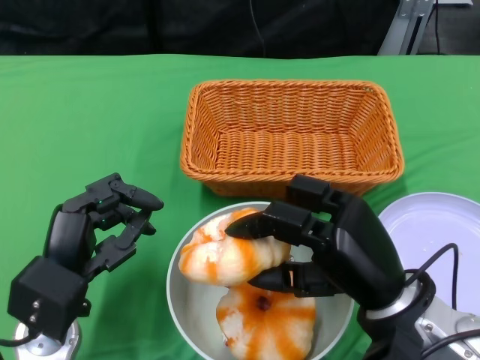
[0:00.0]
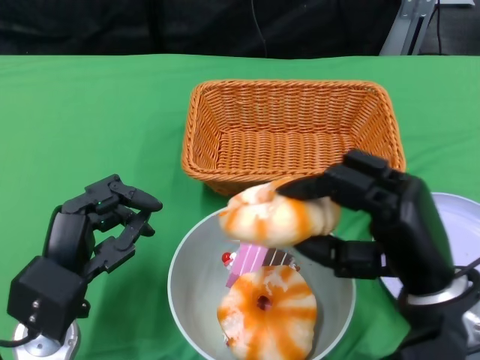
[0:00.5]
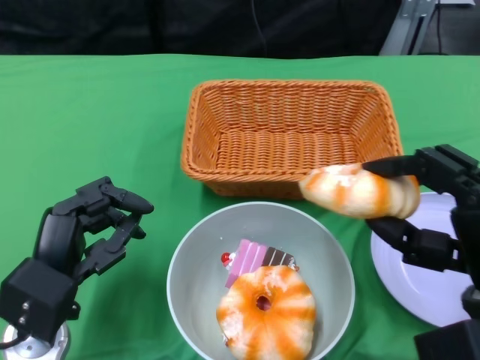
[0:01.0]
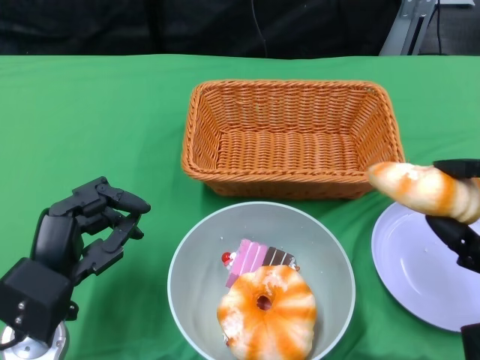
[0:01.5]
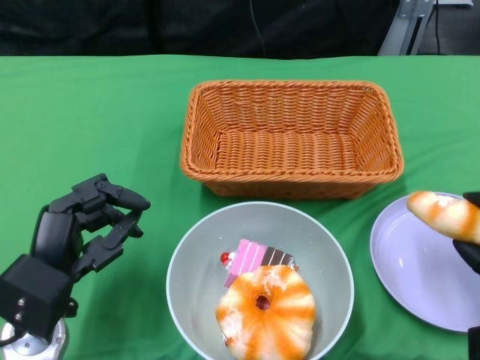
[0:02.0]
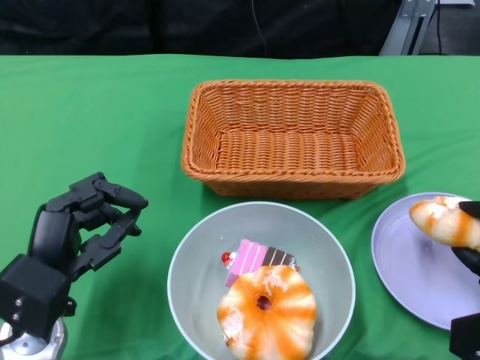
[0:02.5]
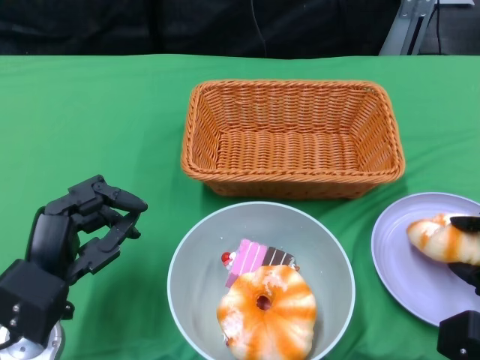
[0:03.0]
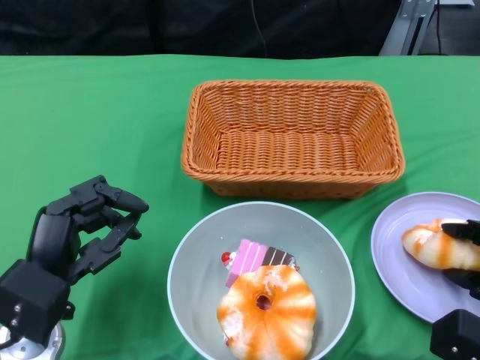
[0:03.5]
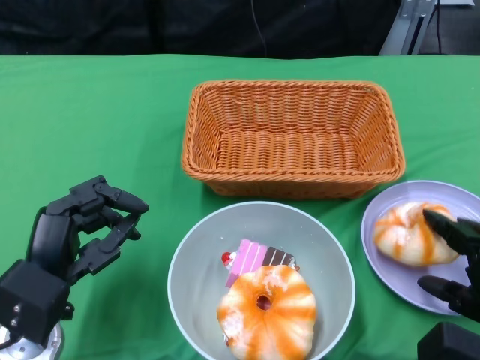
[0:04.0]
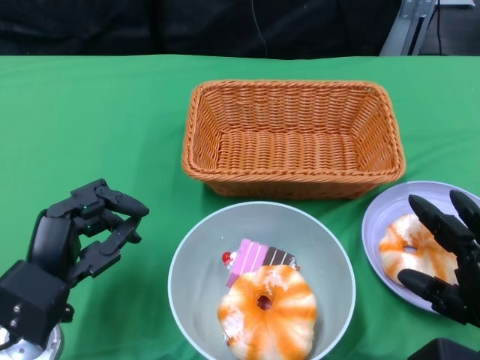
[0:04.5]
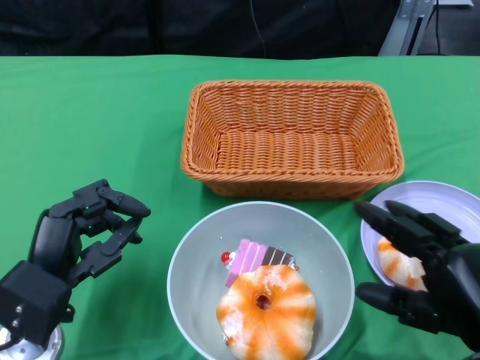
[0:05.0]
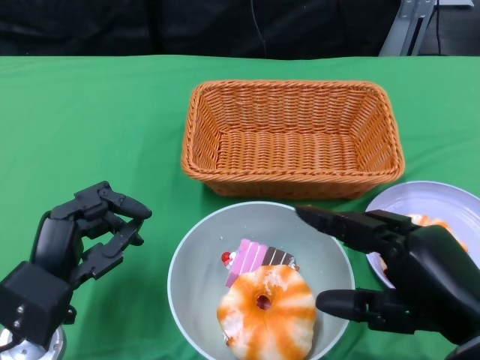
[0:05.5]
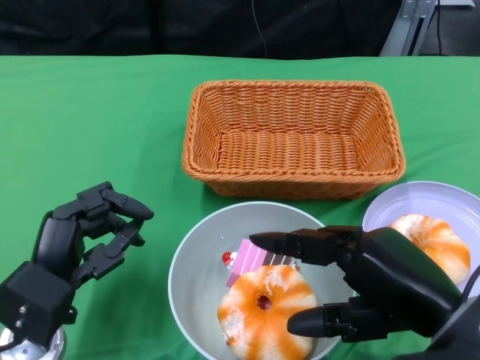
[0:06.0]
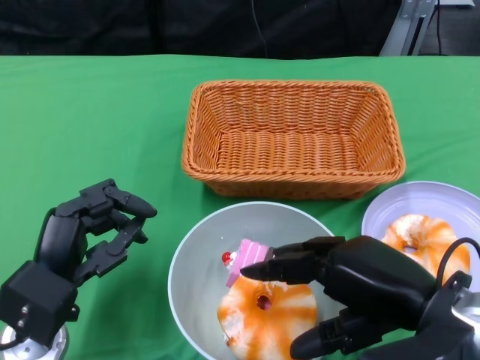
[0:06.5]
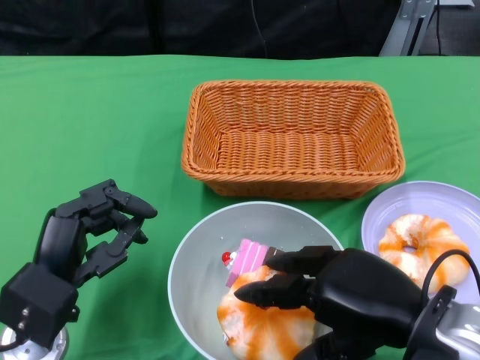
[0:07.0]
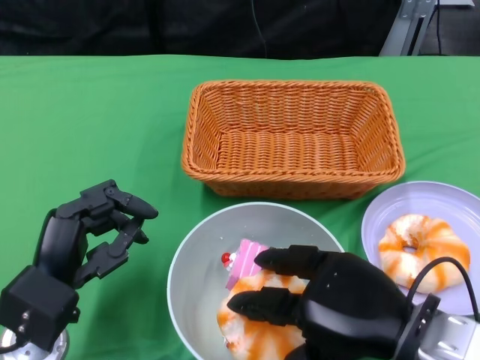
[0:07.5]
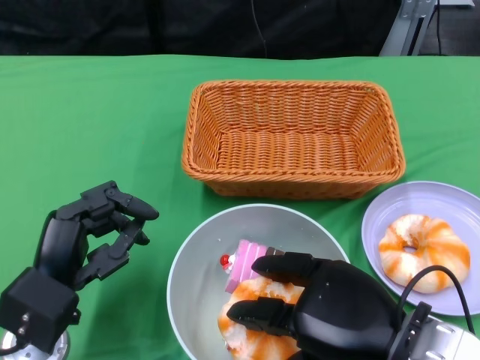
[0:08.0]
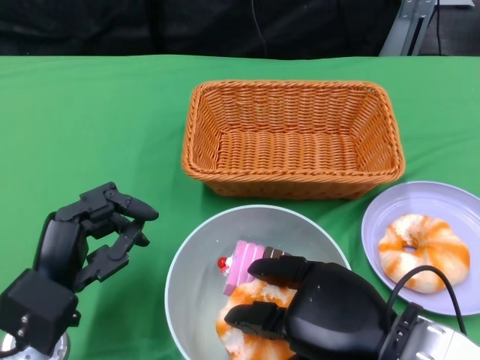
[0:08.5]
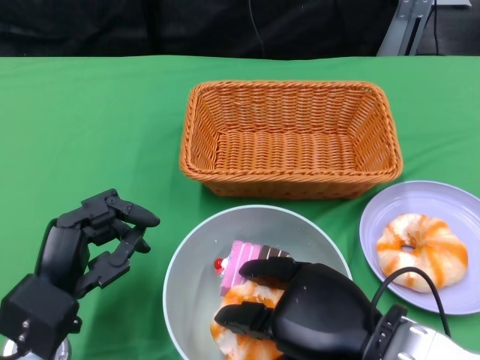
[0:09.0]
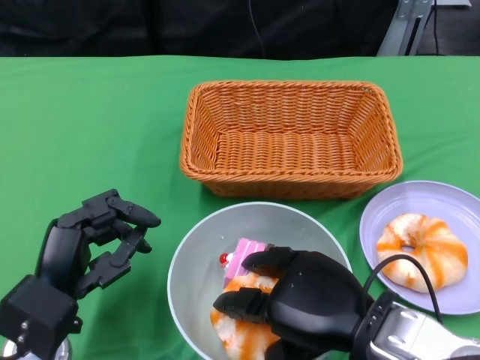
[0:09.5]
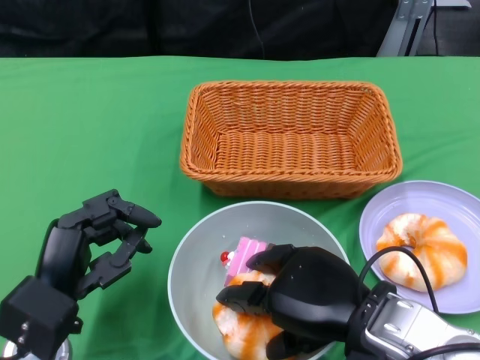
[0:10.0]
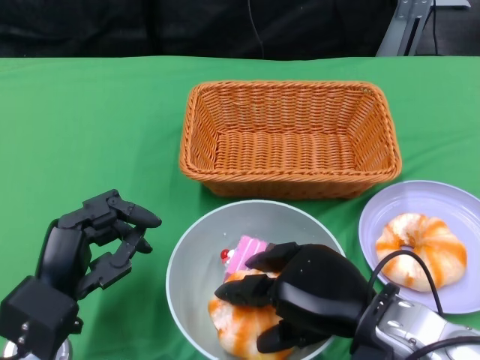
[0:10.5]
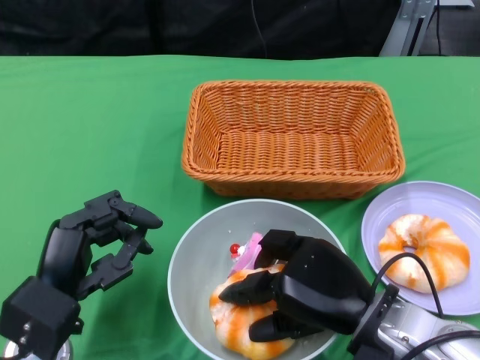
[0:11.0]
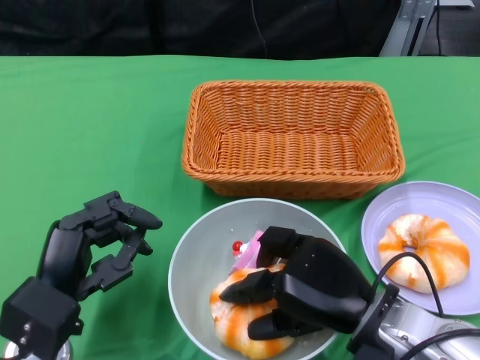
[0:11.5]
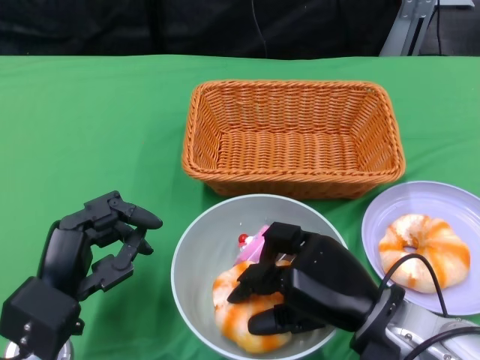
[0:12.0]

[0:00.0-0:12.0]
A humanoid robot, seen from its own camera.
0:00.0 to 0:02.0: The right hand is displaced to the right by about 15 cm.
0:04.0 to 0:06.0: The right hand heads upward and to the left, covering some 15 cm.
0:08.0 to 0:10.0: The hands move only a little.

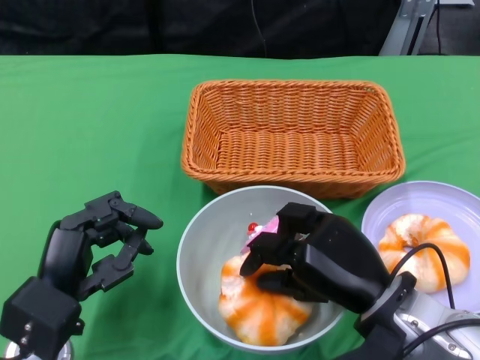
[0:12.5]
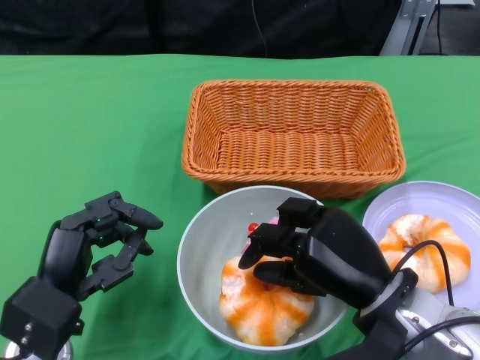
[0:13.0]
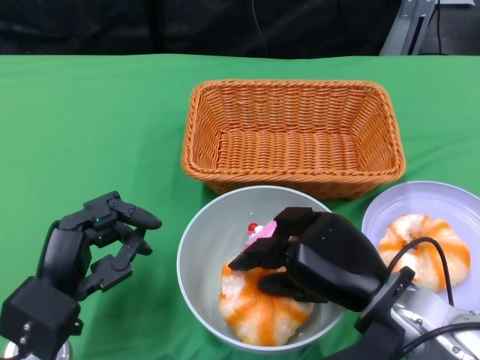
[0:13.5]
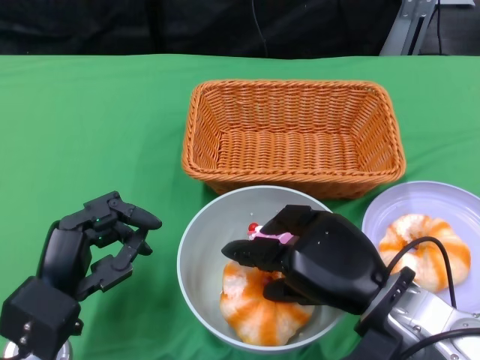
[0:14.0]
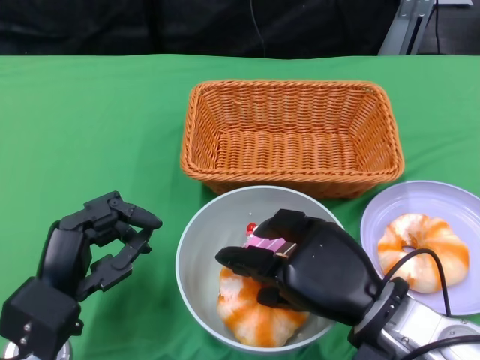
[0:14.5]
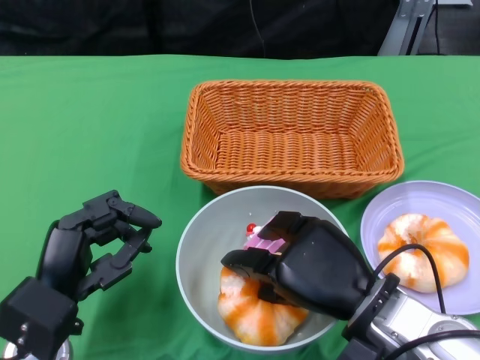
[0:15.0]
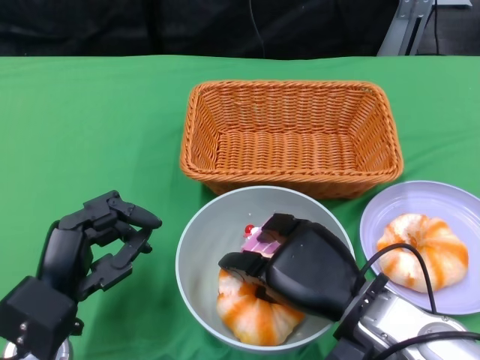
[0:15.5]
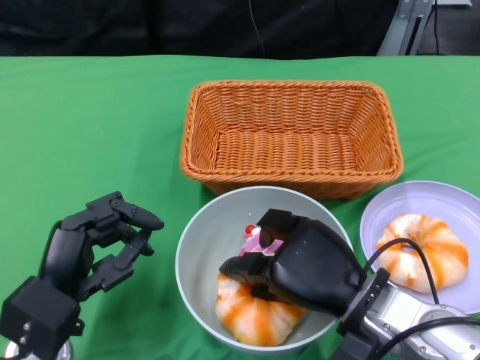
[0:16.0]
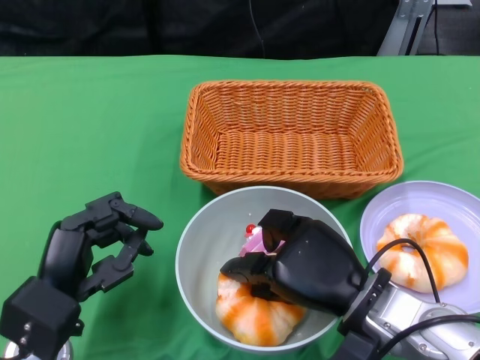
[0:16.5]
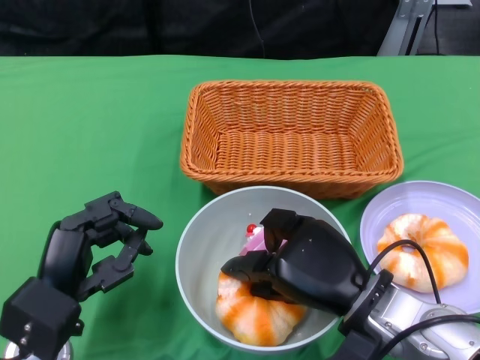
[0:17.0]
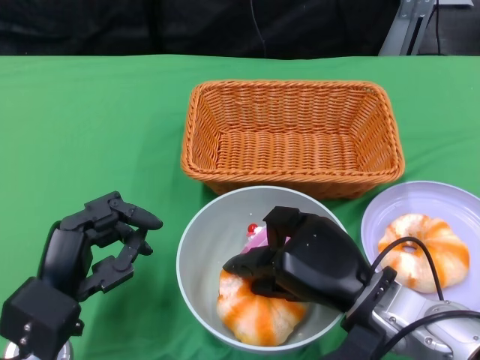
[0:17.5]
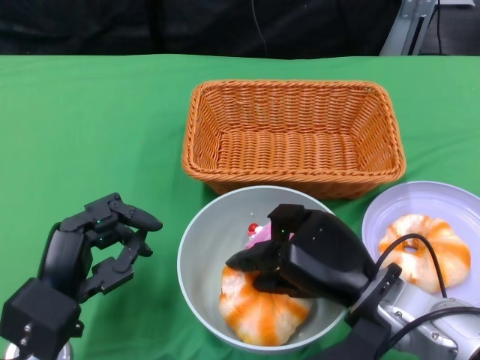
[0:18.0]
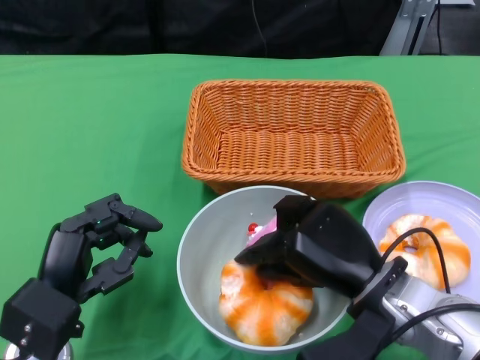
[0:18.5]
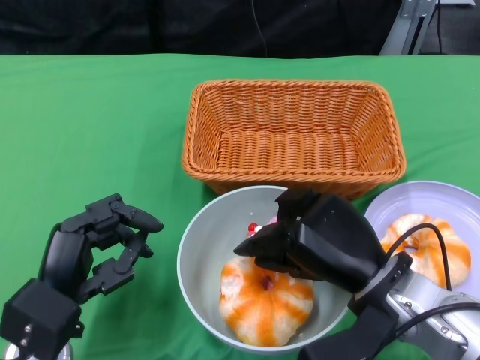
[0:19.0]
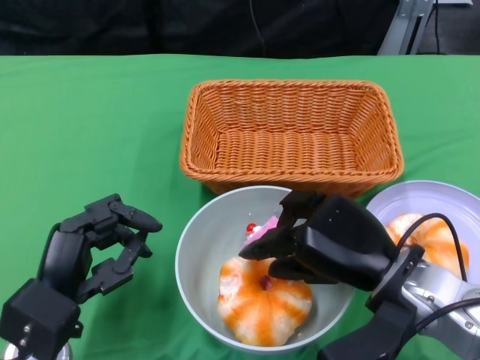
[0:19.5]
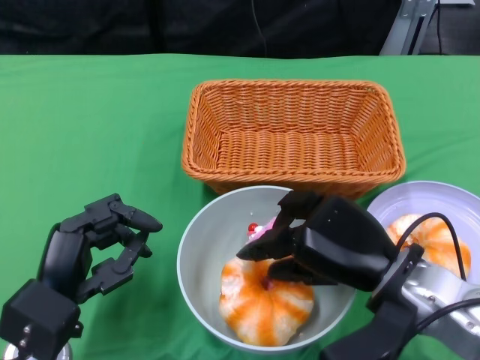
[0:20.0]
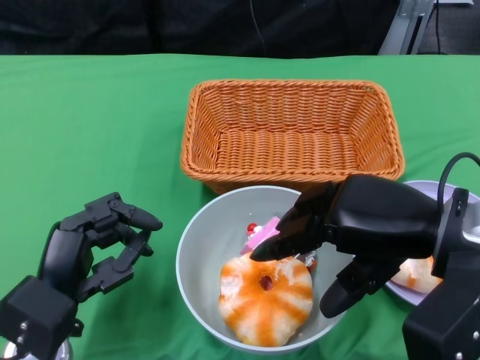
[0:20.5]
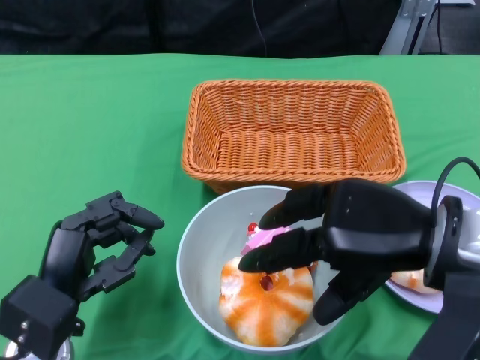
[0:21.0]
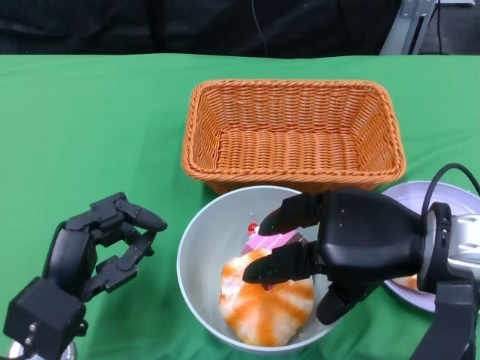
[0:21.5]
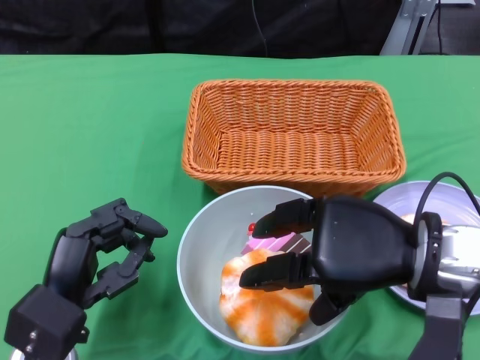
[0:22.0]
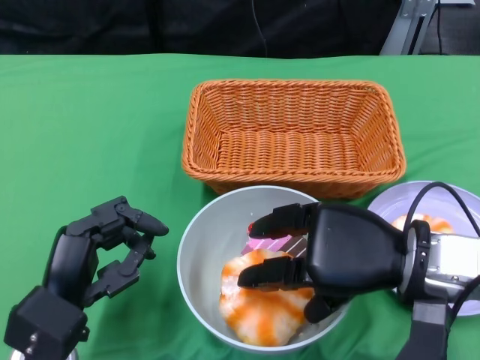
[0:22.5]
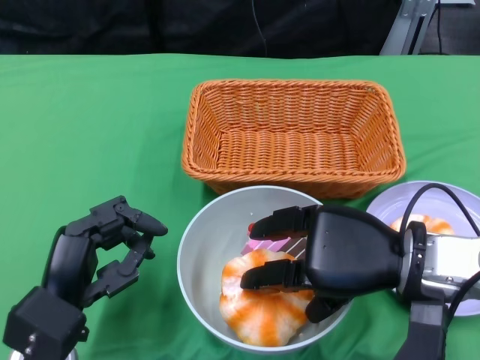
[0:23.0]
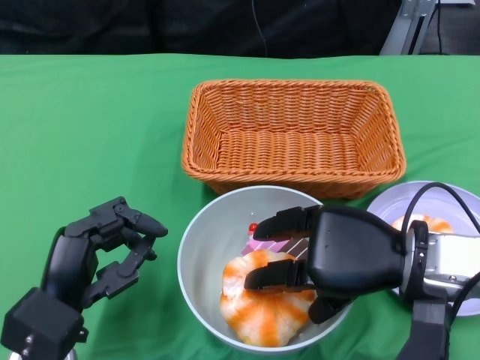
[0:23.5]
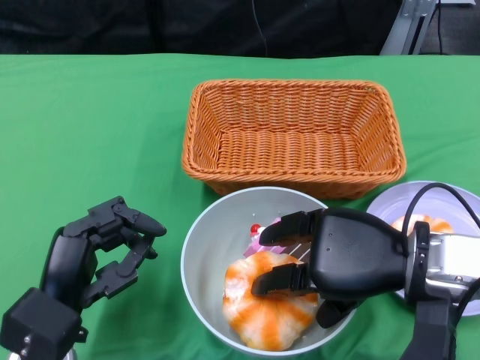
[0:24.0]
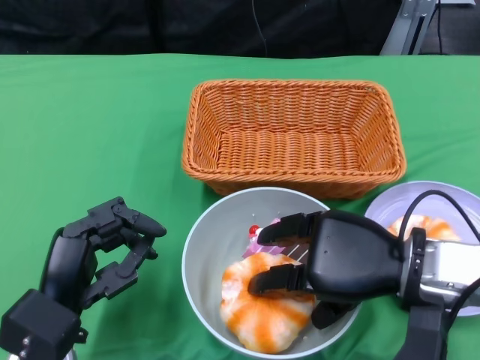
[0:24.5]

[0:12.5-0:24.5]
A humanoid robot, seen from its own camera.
0:12.5 to 0:14.5: The hands stay close to where they were, moving slightly.
0:14.5 to 0:18.5: The hands stay close to where they were, moving slightly.
0:18.5 to 0:20.5: The right hand is displaced upward and to the right by roughly 10 cm.
0:20.5 to 0:22.5: The right hand goes approximately 5 cm downward.
0:22.5 to 0:24.5: The hands make only small movements.

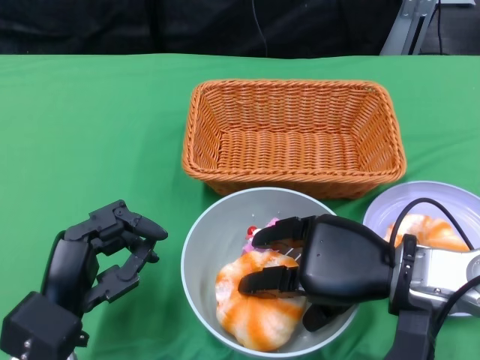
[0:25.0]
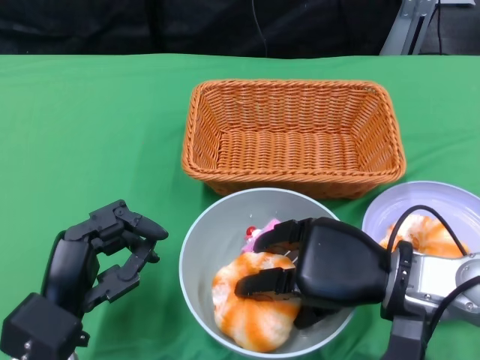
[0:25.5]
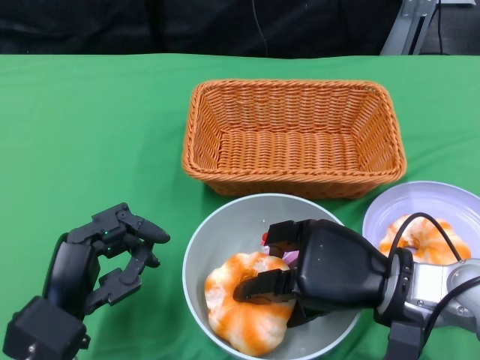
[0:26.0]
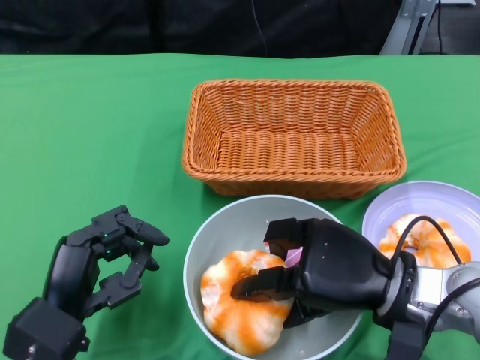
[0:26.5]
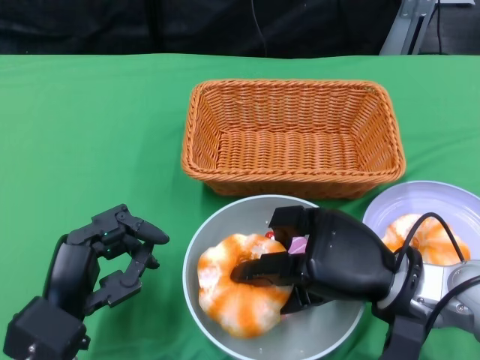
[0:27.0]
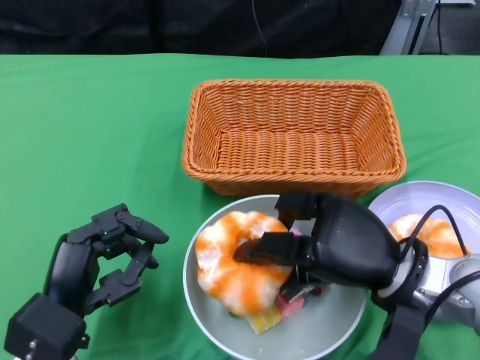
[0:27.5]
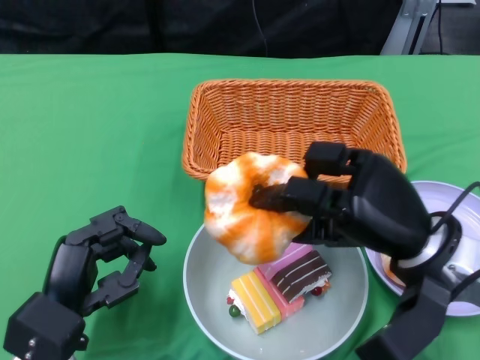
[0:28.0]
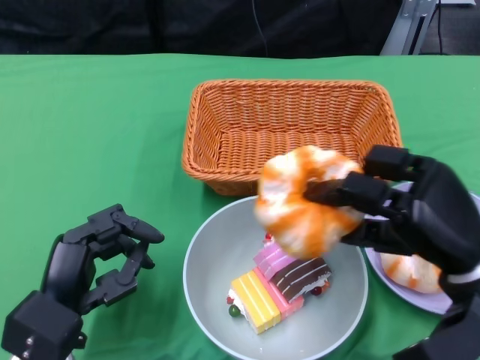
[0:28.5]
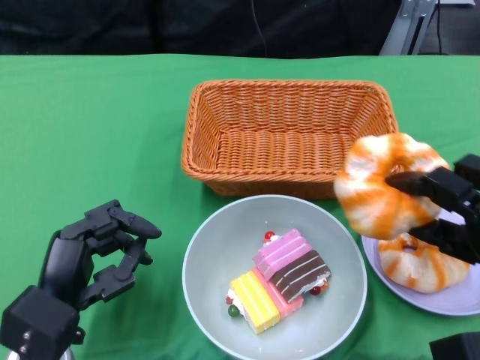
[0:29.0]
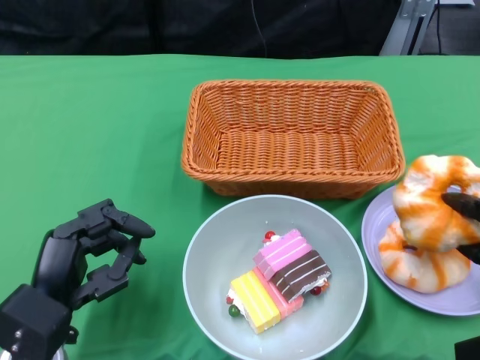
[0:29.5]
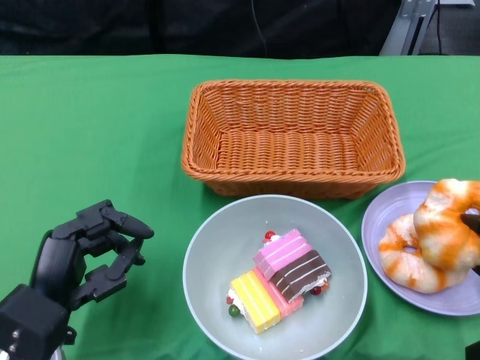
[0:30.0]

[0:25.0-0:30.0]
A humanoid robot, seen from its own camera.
0:27.5 to 0:30.0: The right hand moves to the right and backward, roughly 15 cm.
